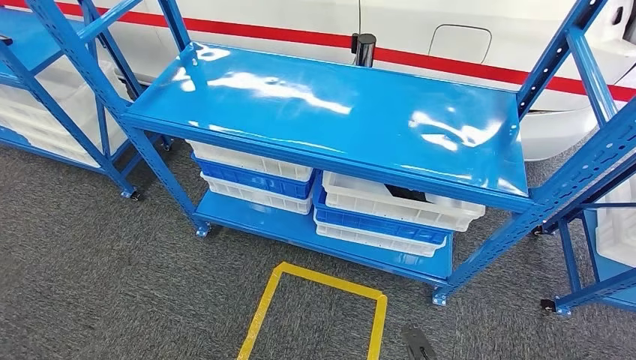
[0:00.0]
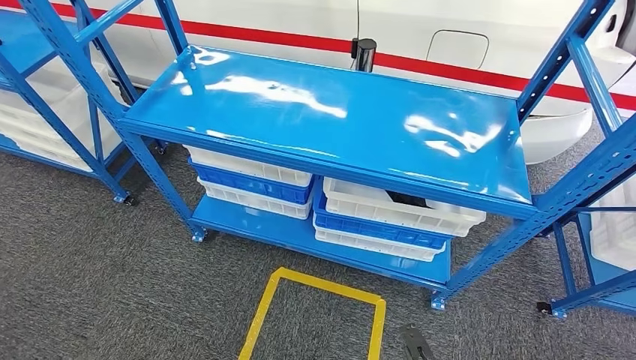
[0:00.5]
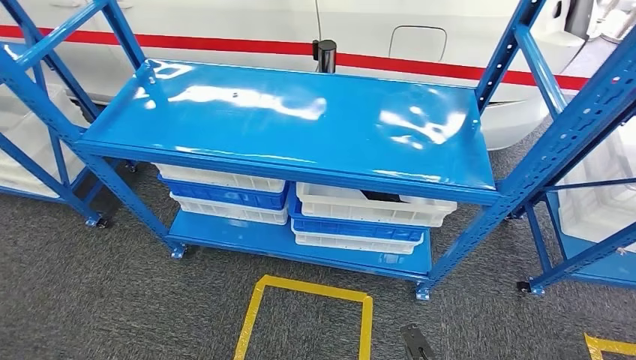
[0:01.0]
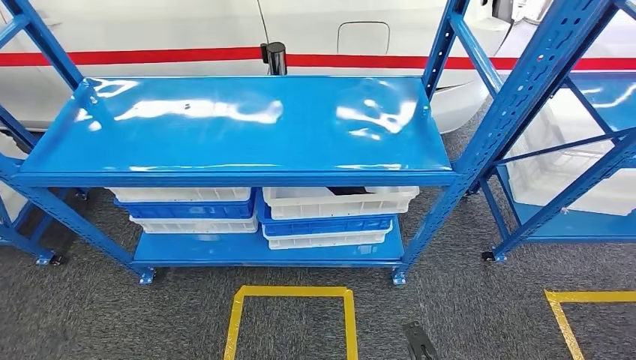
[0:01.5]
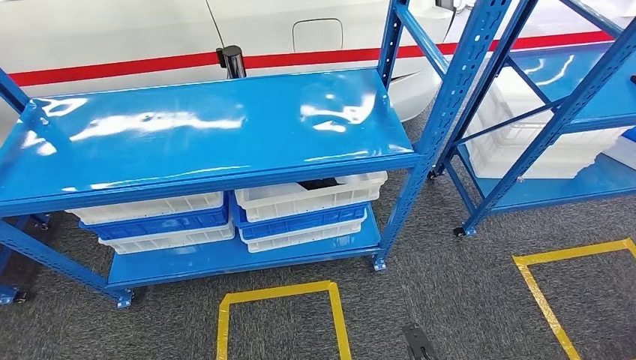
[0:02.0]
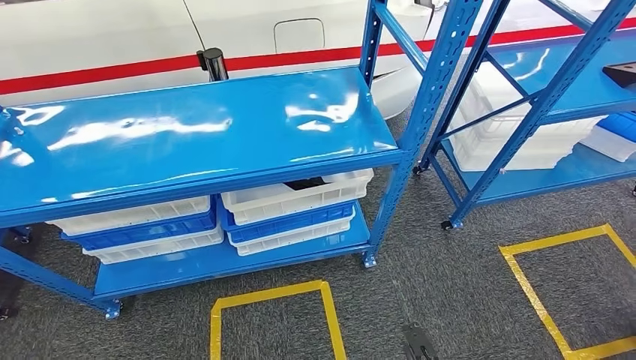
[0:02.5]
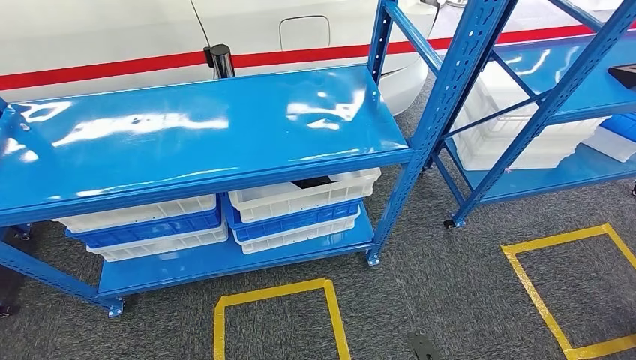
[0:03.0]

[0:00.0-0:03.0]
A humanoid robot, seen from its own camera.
Step, 0:00.0 to 0:03.0: Move to the initial position of the shelf.
